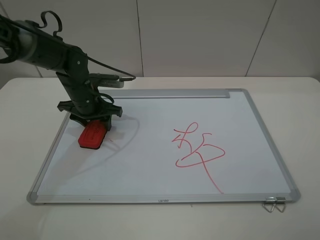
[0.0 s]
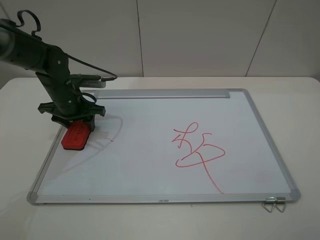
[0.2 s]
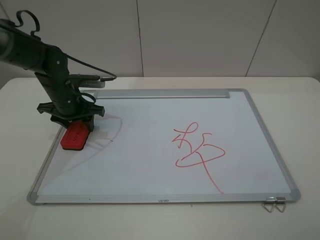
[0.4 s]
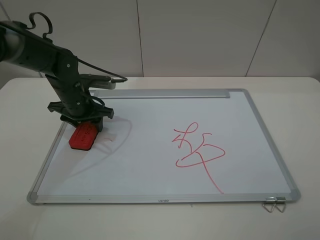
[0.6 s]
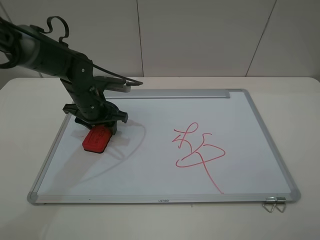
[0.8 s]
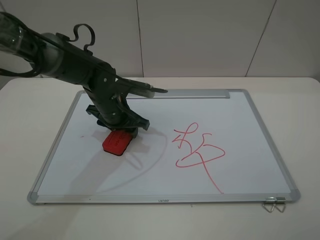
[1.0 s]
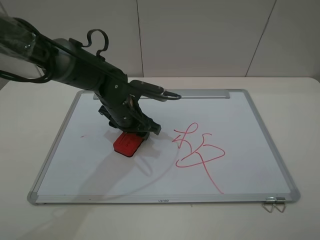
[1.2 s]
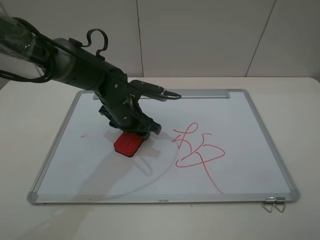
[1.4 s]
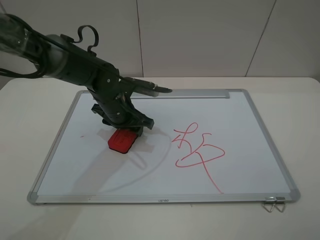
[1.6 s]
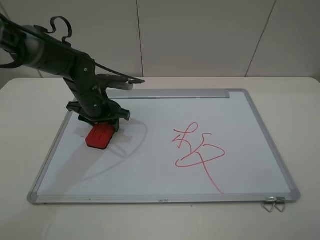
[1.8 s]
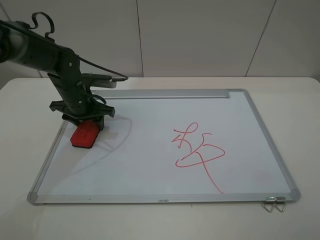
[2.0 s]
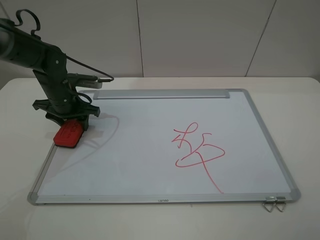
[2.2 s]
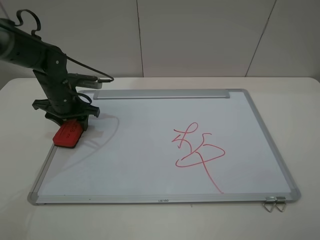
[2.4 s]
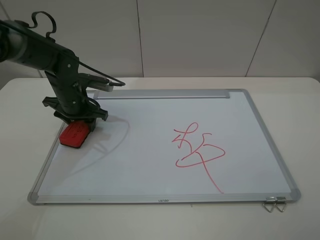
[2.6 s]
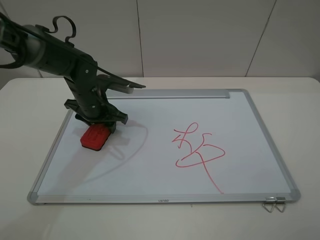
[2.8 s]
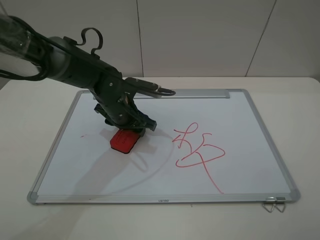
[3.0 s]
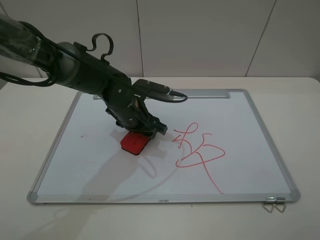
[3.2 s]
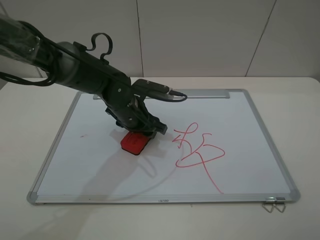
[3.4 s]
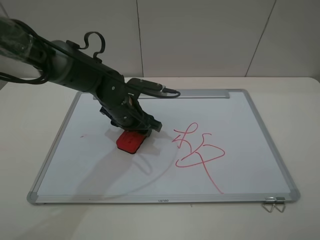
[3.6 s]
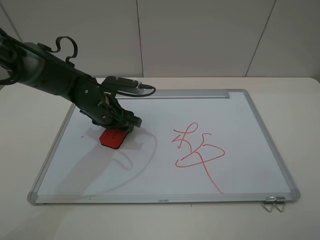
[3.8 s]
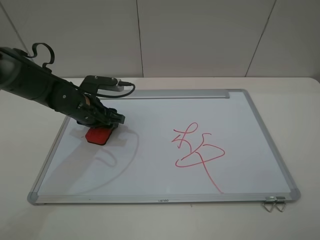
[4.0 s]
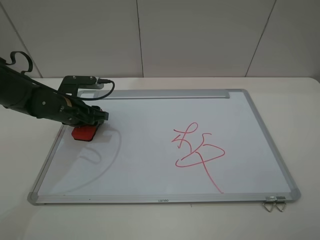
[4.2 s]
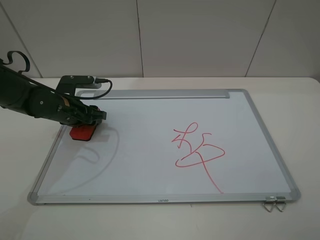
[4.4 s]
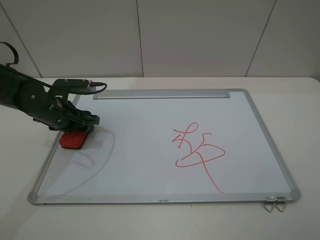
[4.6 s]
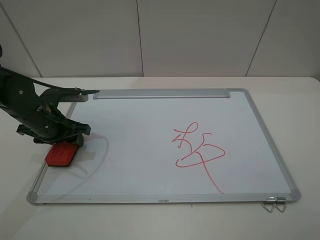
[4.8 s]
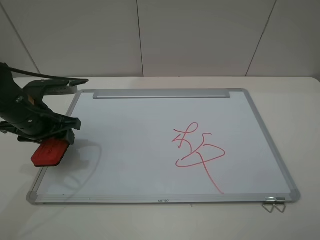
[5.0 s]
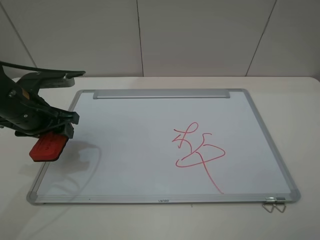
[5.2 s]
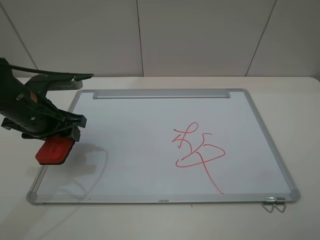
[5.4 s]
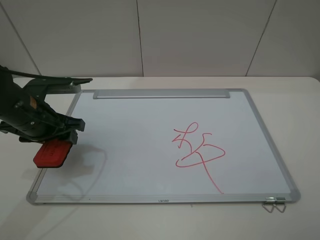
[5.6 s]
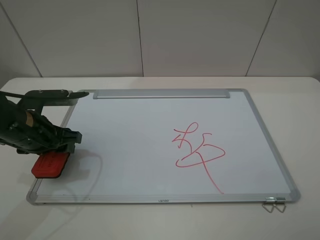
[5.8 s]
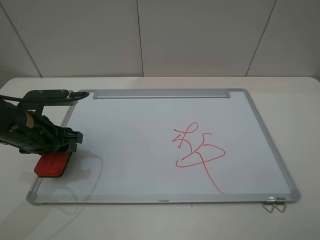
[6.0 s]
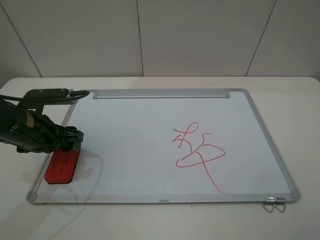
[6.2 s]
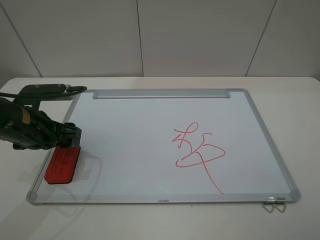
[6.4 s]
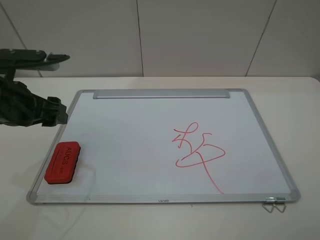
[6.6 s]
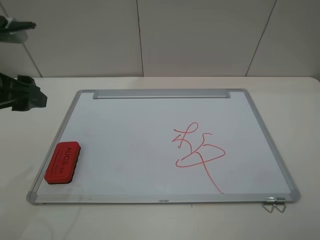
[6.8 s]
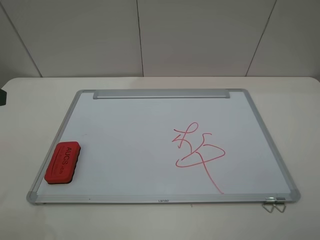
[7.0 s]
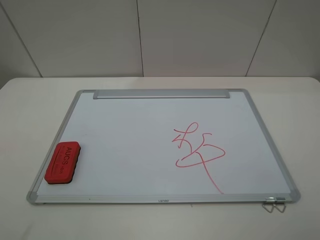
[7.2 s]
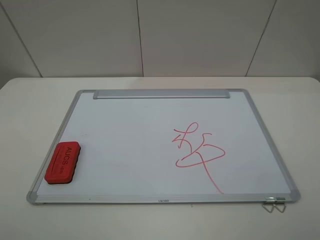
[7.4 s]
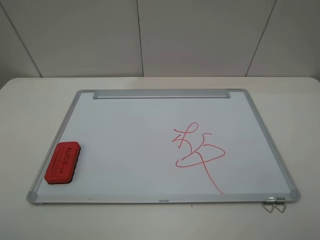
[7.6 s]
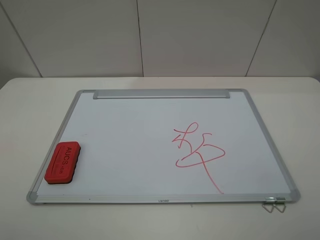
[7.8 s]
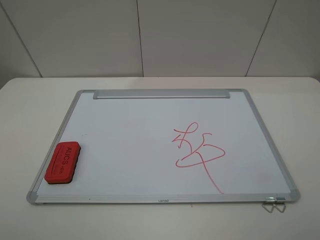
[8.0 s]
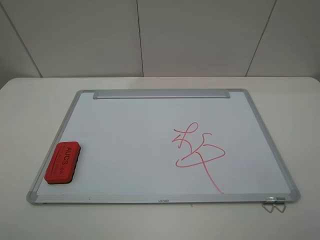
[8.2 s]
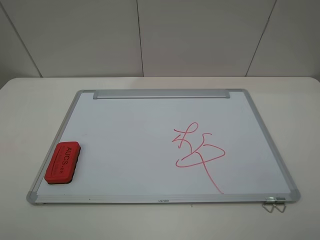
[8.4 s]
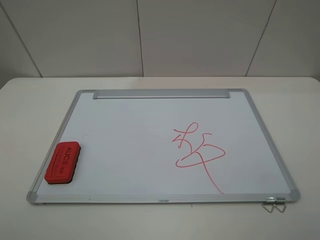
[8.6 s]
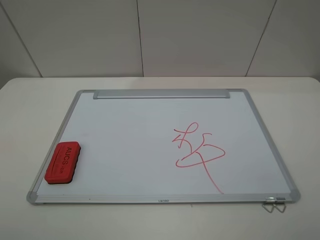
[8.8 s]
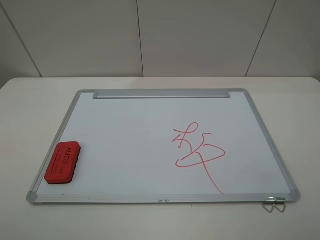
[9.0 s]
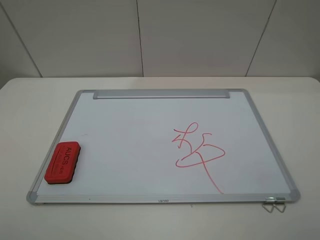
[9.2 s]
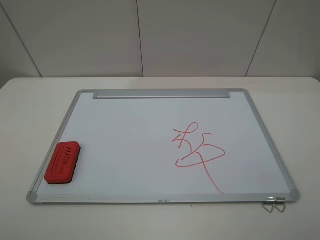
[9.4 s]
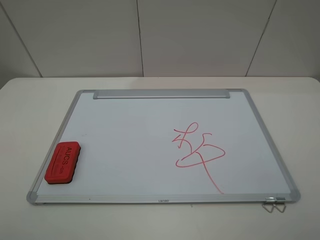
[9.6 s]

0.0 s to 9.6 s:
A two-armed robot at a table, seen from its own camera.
Step, 0.0 to 4.8 s: Grasp the eraser and wipe the blackboard with the left gripper.
Step, 5.0 to 6.4 s: Place the eraser with the left gripper.
0.0 to 1.6 s: The left gripper heads to the right, covering roughly 10 cm.
1.6 to 3.2 s: The left gripper travels to the left and back again, some 10 cm each way.
3.2 to 4.8 s: The left gripper heads to the left, covering roughly 20 cm.
4.8 to 6.4 s: The left gripper changes place by roughly 5 cm, and opens its fingers.
6.4 to 8.0 s: The left gripper travels backward and upward by roughly 25 cm.
